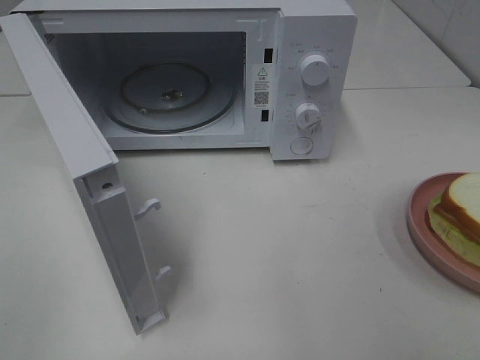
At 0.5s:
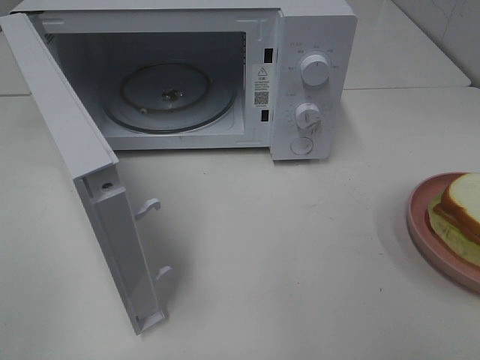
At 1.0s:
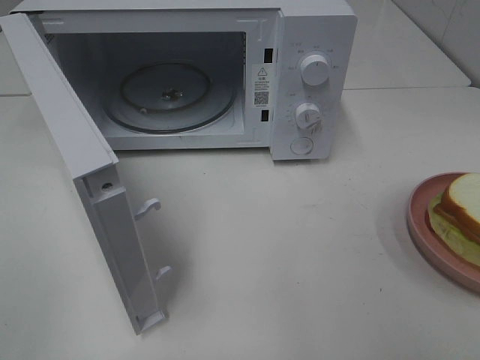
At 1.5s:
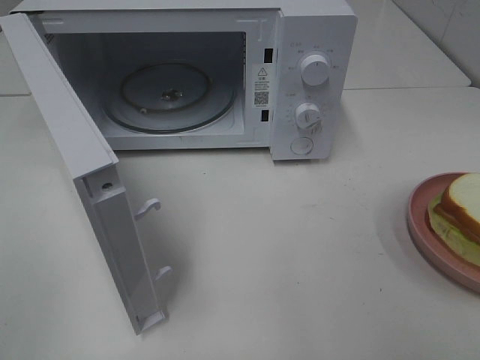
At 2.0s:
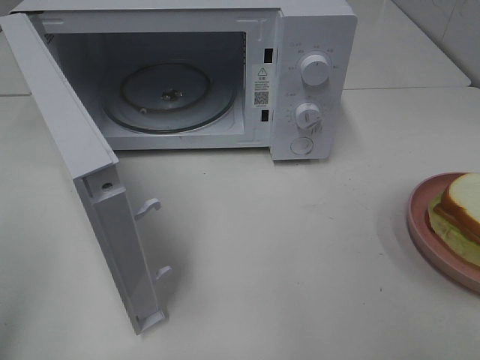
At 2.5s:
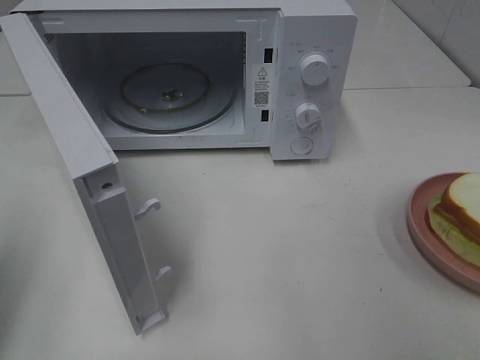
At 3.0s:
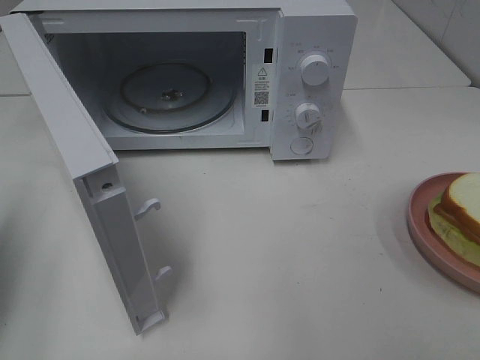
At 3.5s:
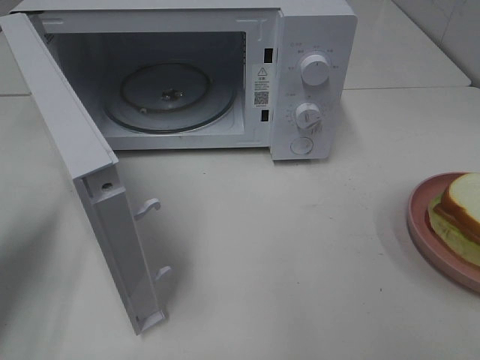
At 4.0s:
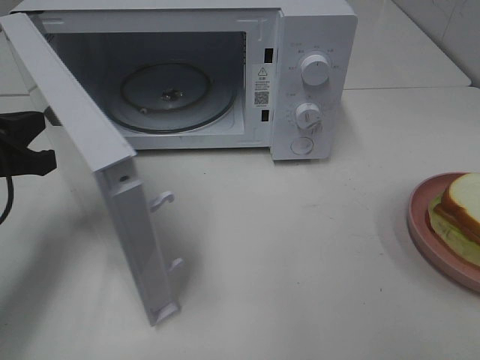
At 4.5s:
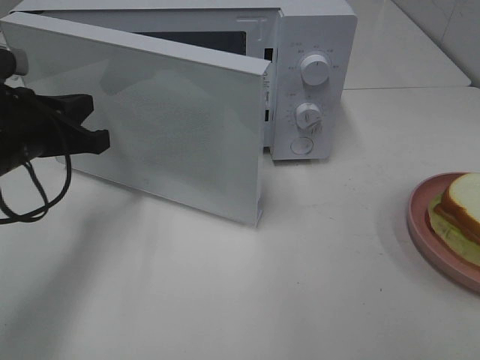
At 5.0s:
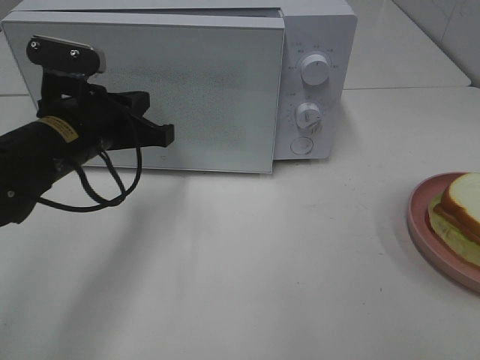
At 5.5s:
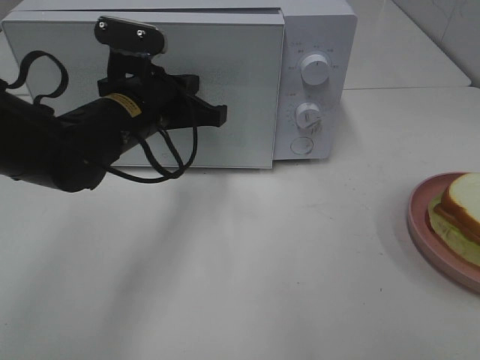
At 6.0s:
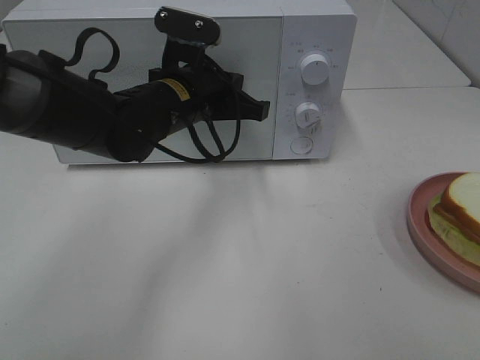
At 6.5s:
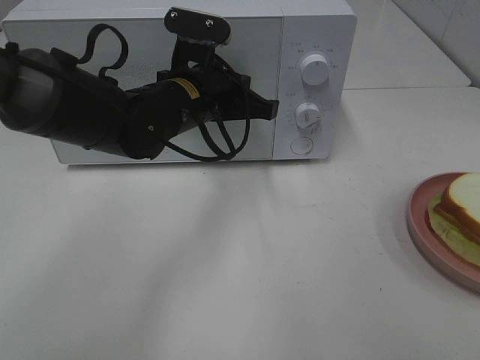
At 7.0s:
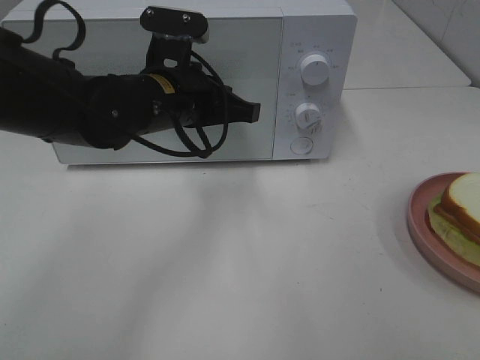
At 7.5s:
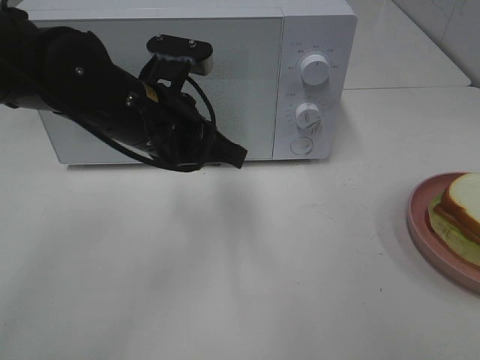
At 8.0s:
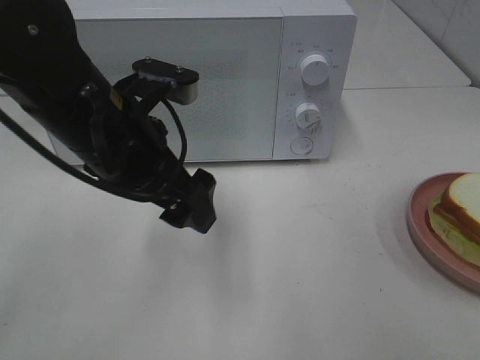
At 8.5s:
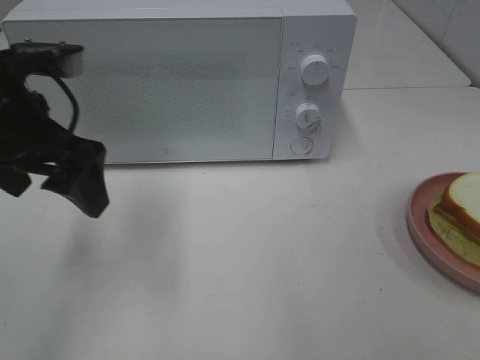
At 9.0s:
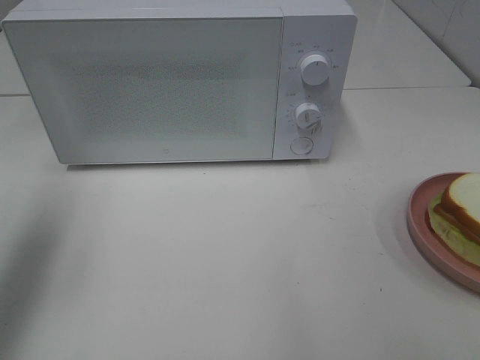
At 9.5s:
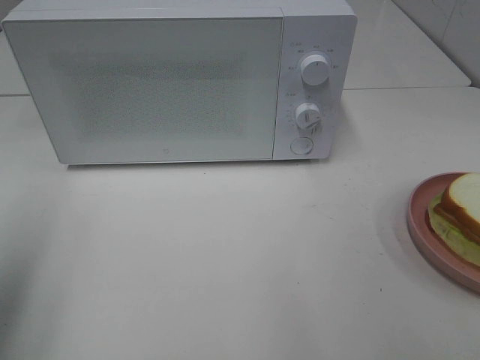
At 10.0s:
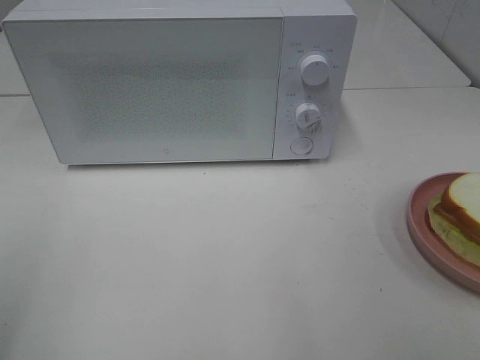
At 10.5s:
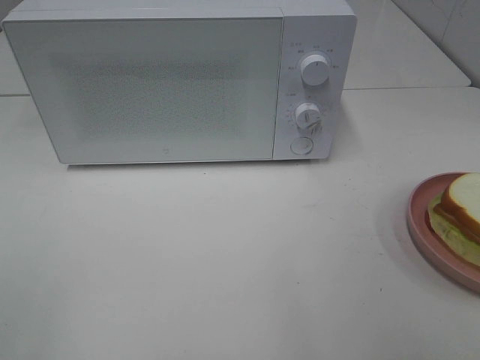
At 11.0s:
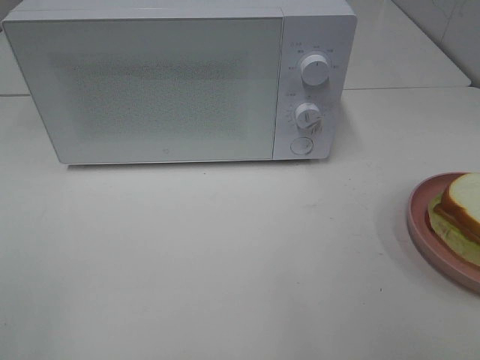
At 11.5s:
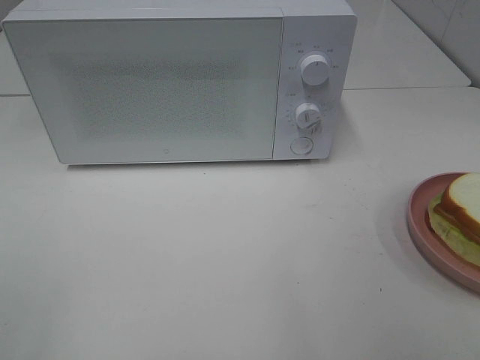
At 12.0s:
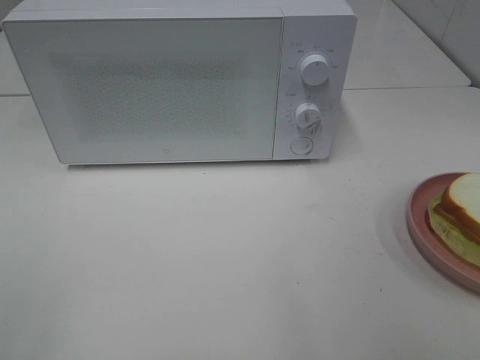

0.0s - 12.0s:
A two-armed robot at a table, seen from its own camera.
Task of the whole recording: Heat Sandwich.
Step, 0.0s - 7.0s: Left hand: close the microwave door.
2.0s - 4.0s: The left gripper is displaced forward and downward by some 25 cm, and closes up.
4.0s - 6.0s: The left gripper heads to the right and forward, covering some 25 cm.
6.0s - 8.0s: The left gripper is displaced backward by about 10 cm, and opens up.
8.0s - 10.0s: The left gripper is displaced to the left and backward by roughly 30 cm.

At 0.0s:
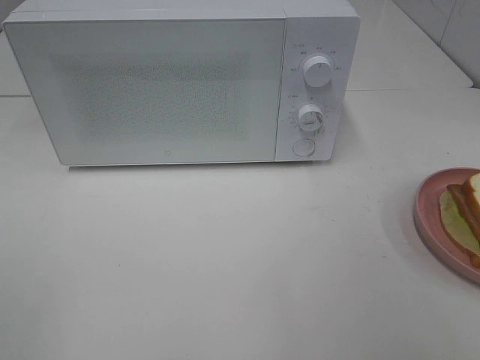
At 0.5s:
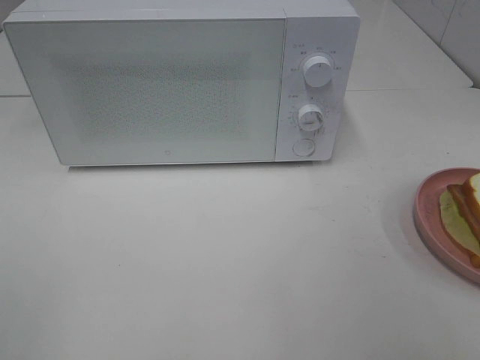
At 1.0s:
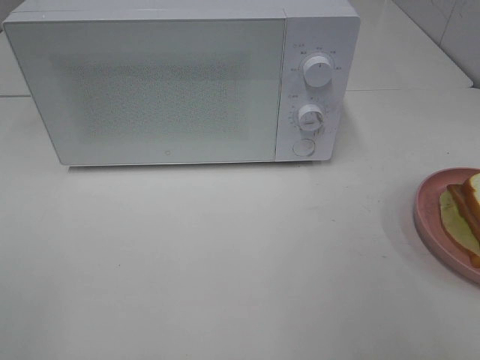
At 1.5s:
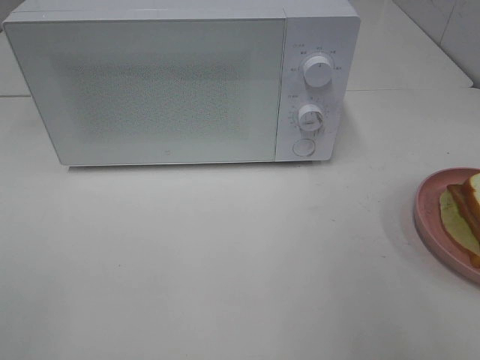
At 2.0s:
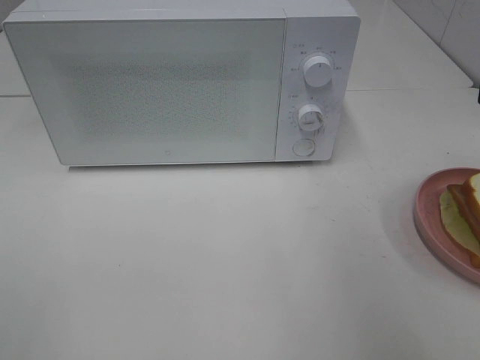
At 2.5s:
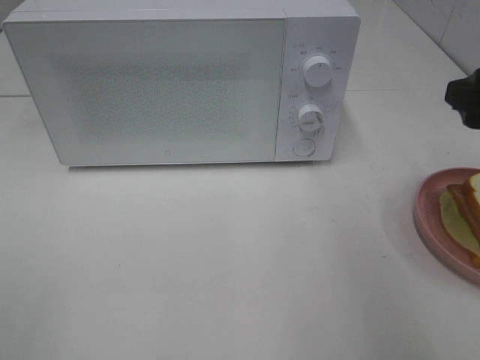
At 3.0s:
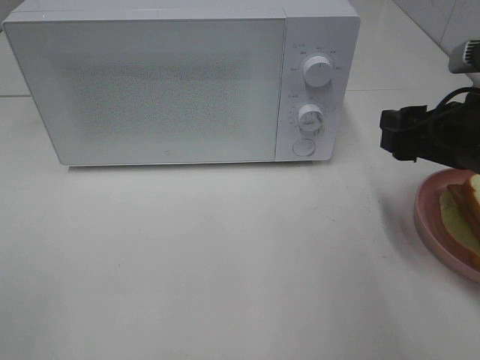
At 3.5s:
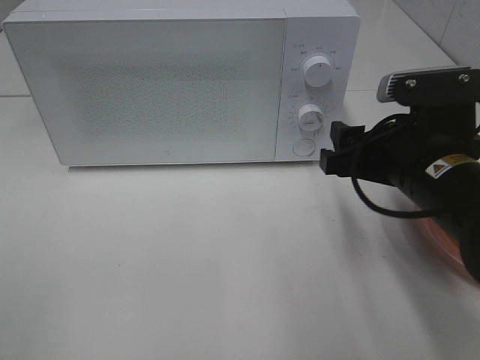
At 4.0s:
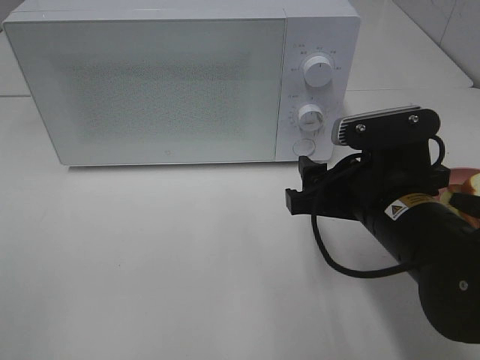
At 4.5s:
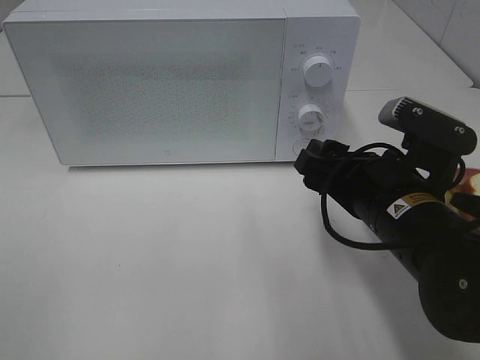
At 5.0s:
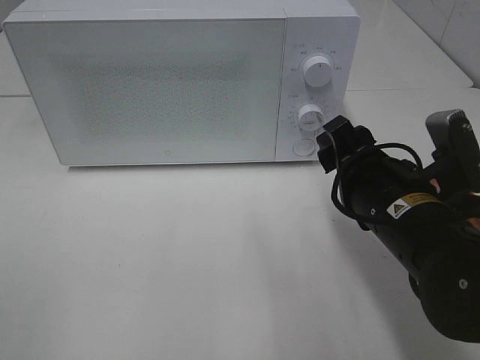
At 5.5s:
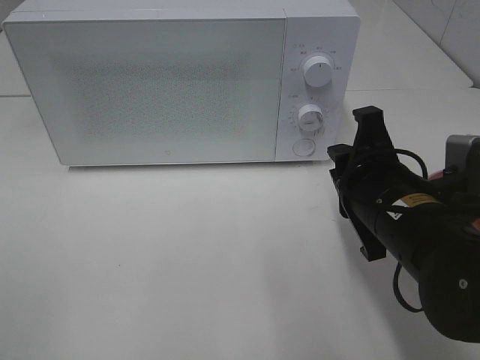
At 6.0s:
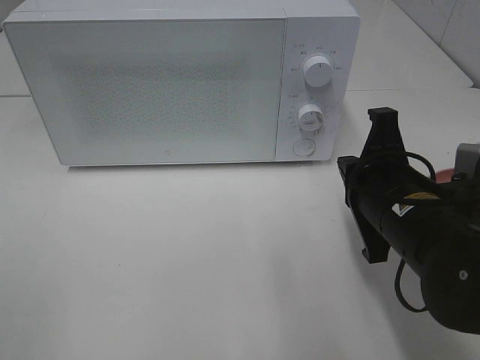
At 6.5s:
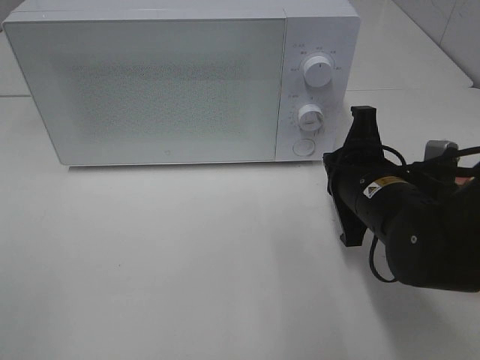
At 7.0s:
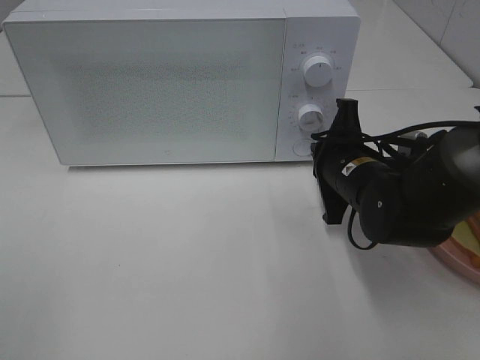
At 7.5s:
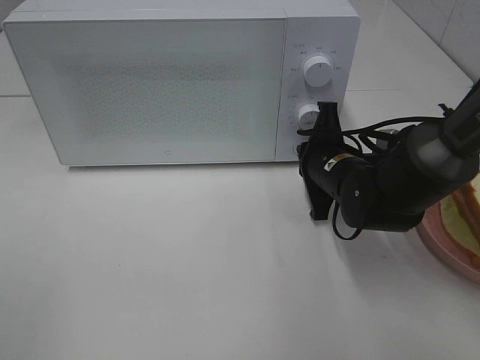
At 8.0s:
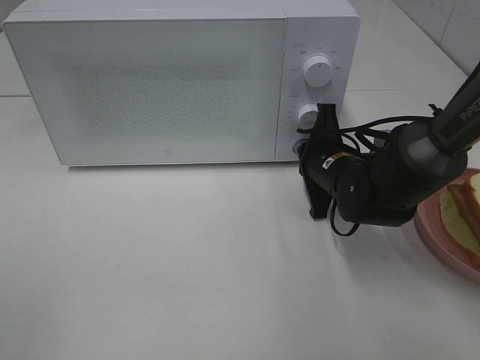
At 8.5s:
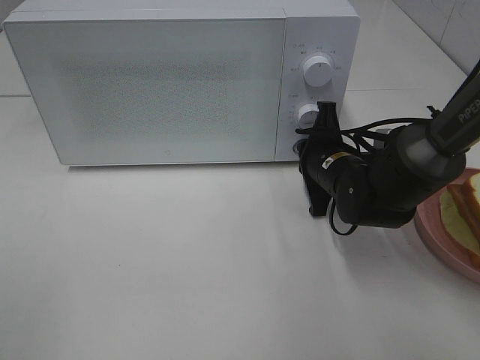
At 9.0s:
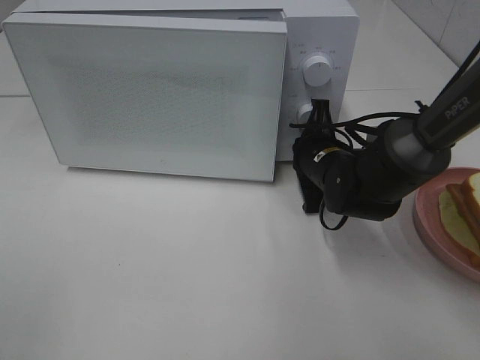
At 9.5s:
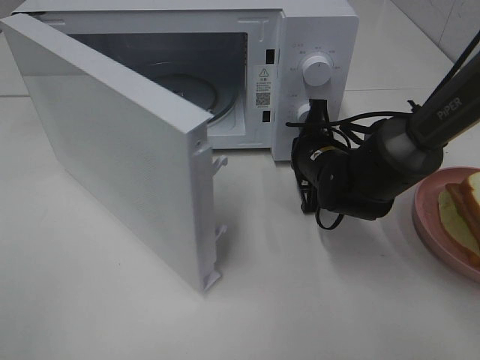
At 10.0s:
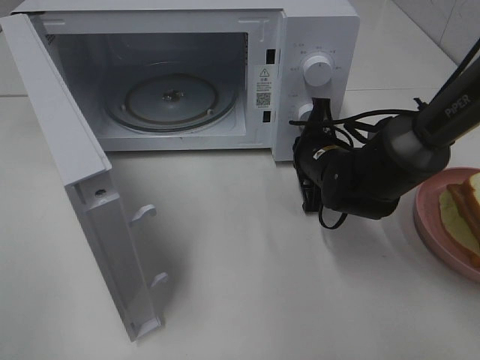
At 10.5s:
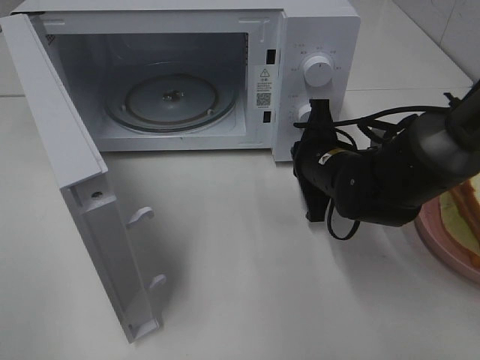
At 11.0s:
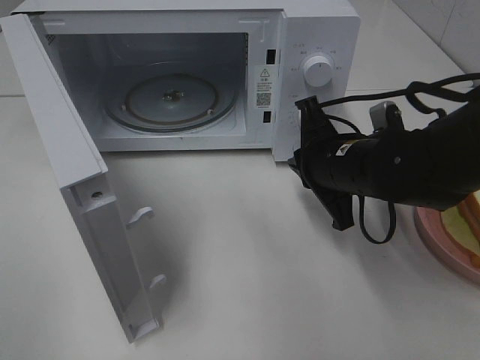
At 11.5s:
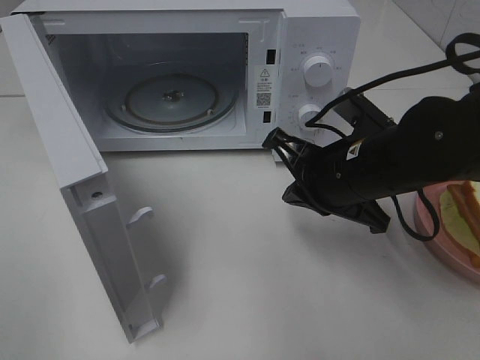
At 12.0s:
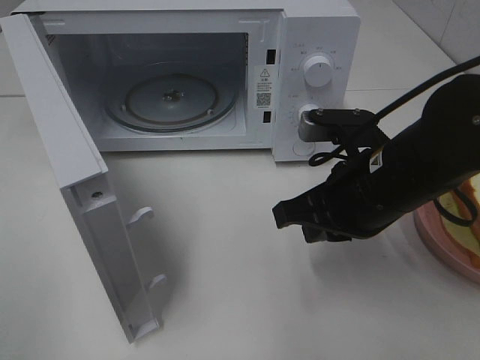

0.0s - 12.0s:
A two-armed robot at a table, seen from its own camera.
Task of the whole recording: Heat Sandwich.
Step, 0.0s - 10.0s: Right hand: press the switch.
2.0s - 4.0s: The right gripper heads to the left and downward, covering approximately 20 cm.
4.0s - 6.0s: The right gripper closes its fingers.
6.0s - 8.0s: The right gripper is displaced forward and downward by some 15 cm.
10.0s - 12.0s: The right gripper moves backward and upward, about 15 cm.

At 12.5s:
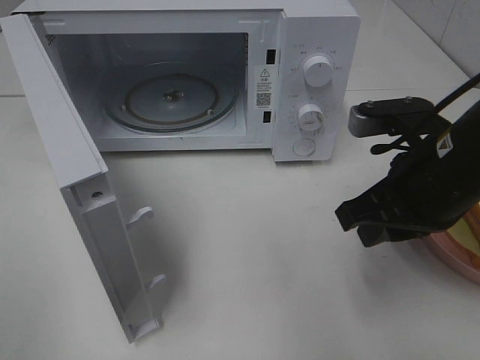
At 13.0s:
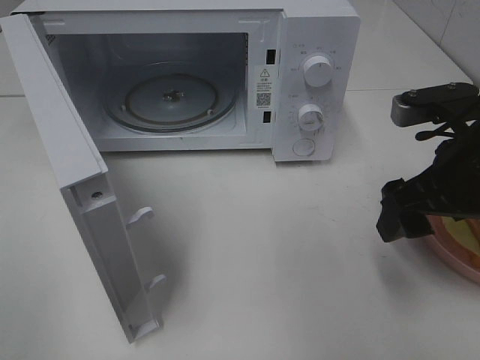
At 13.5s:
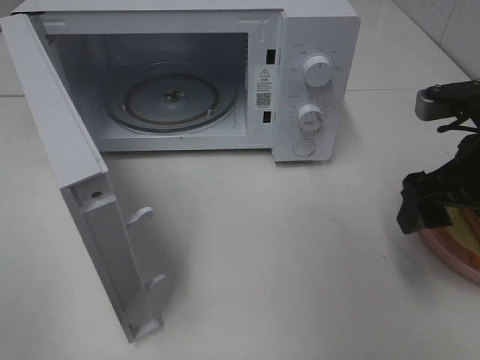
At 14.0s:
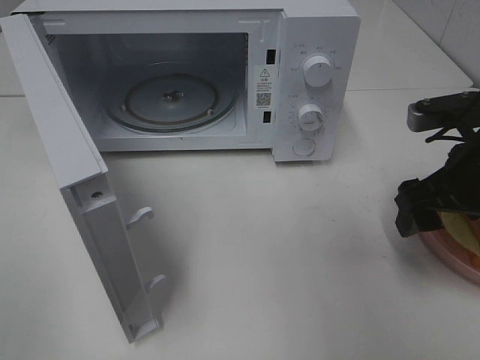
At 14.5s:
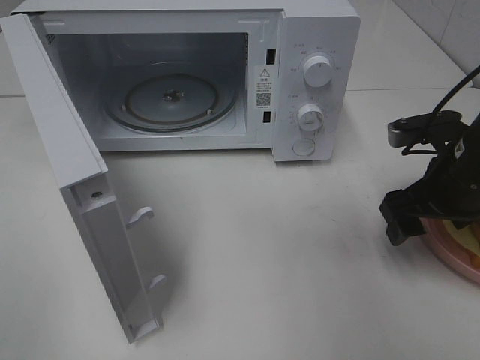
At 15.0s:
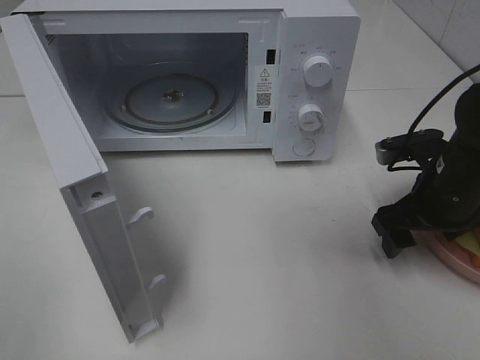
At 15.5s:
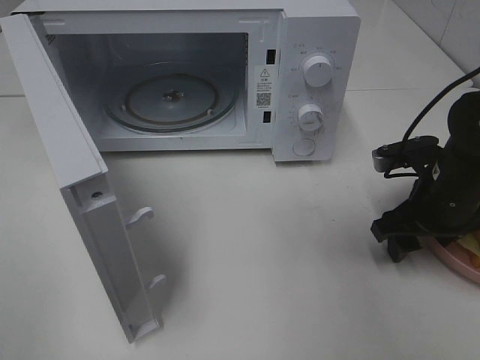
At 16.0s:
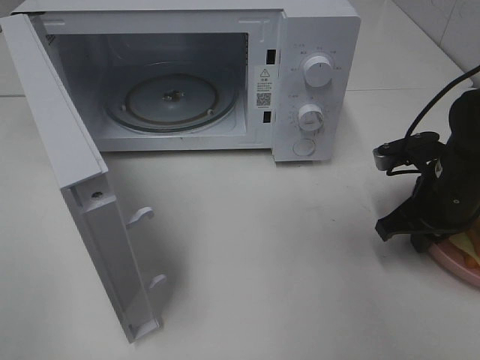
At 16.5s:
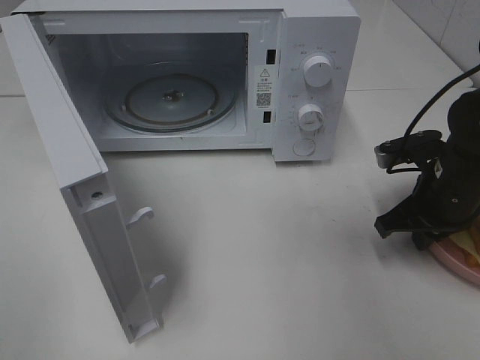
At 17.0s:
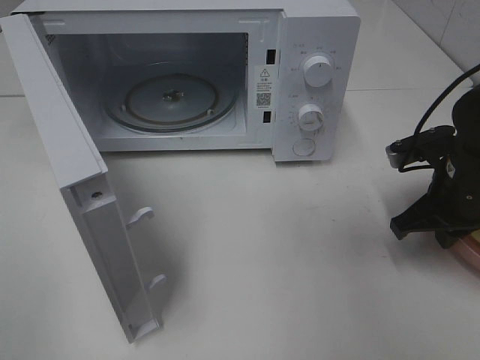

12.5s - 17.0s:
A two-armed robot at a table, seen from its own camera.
Task of the whole recording: Heat Sandwich.
Step, 12.5s - 16.5s: Right hand: grab the plate with the sandwich.
12.5s - 14.5s: The right gripper heads to the right and forward, covering approximately 10 cm, and opens up.
14.5s - 17.0s: The right gripper closes.
